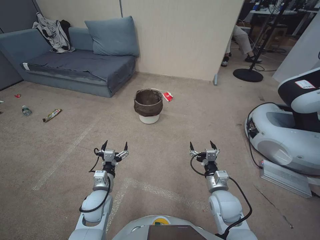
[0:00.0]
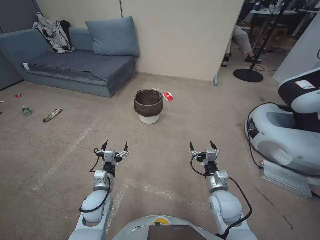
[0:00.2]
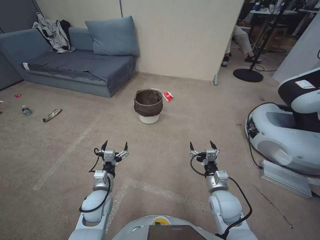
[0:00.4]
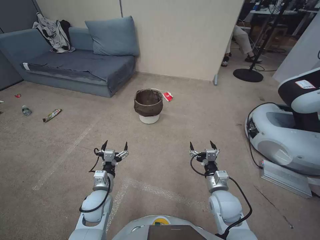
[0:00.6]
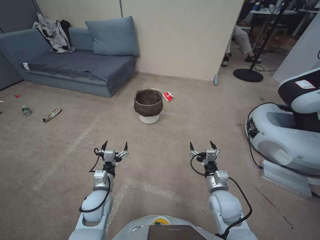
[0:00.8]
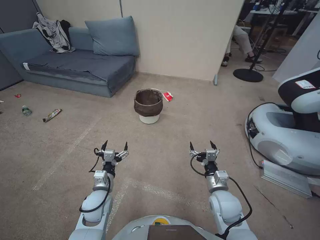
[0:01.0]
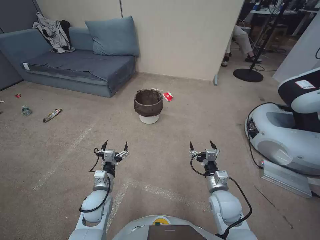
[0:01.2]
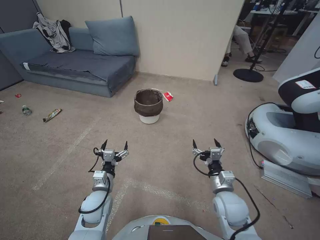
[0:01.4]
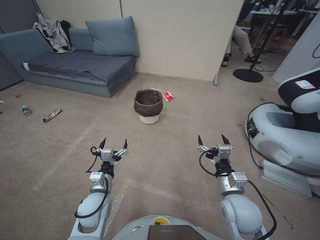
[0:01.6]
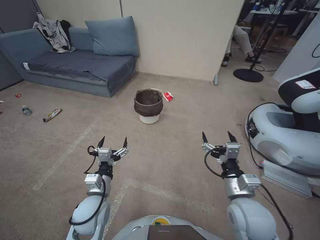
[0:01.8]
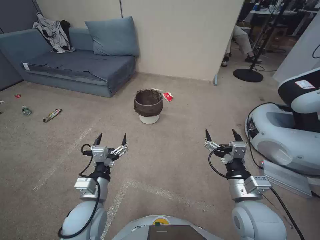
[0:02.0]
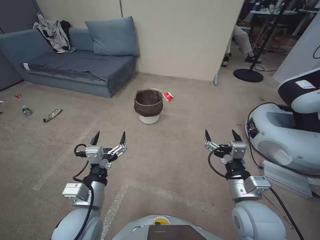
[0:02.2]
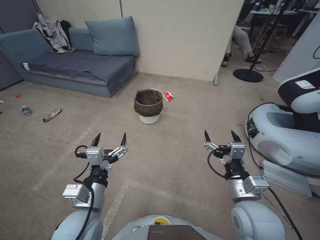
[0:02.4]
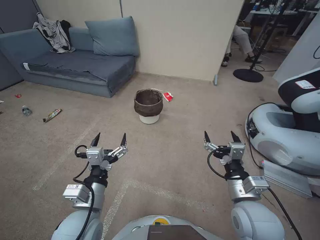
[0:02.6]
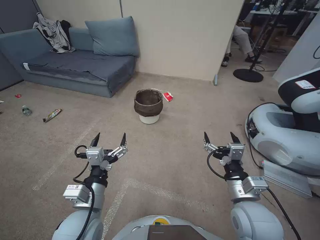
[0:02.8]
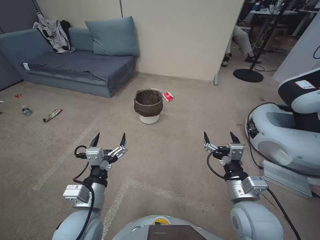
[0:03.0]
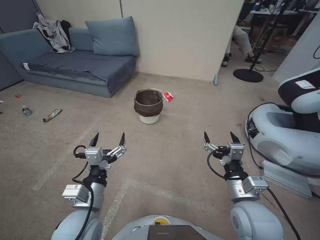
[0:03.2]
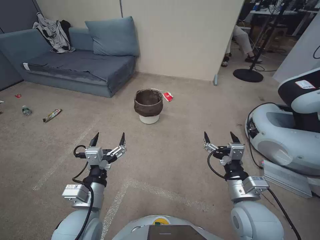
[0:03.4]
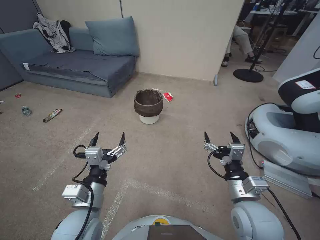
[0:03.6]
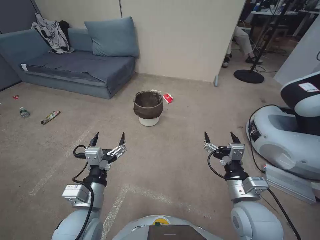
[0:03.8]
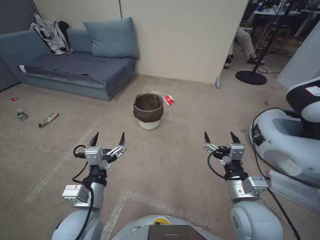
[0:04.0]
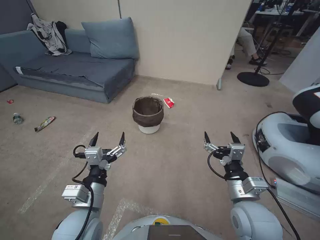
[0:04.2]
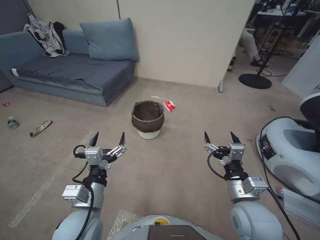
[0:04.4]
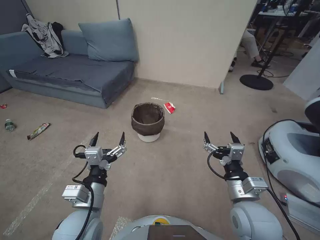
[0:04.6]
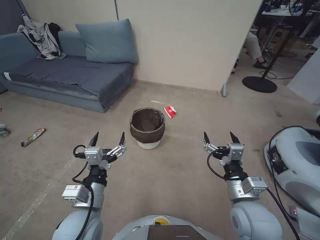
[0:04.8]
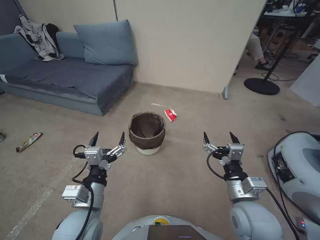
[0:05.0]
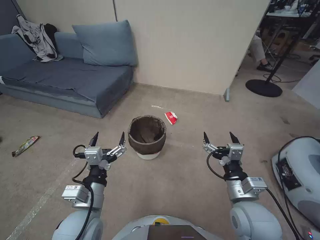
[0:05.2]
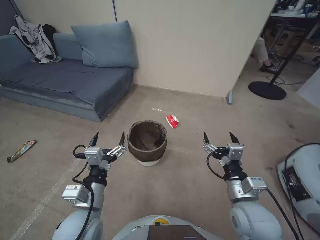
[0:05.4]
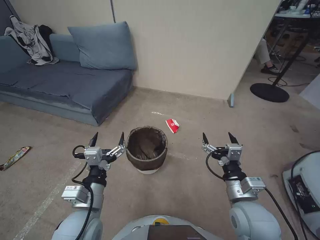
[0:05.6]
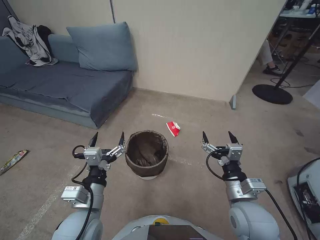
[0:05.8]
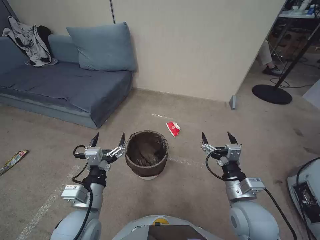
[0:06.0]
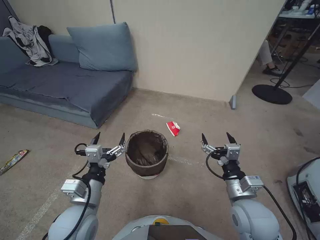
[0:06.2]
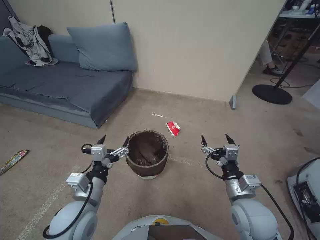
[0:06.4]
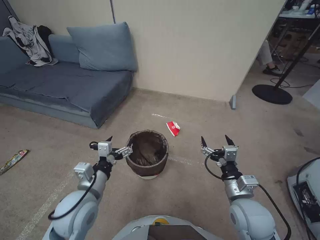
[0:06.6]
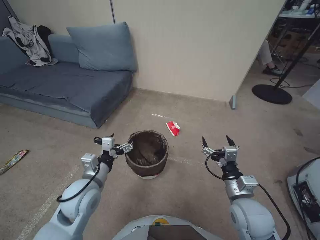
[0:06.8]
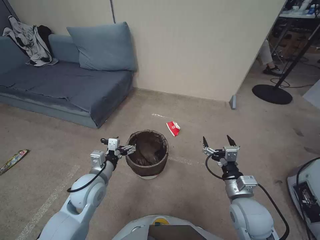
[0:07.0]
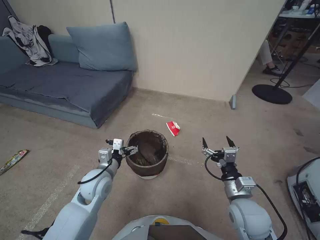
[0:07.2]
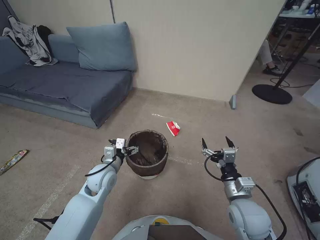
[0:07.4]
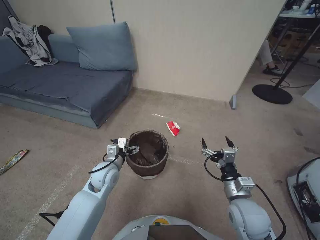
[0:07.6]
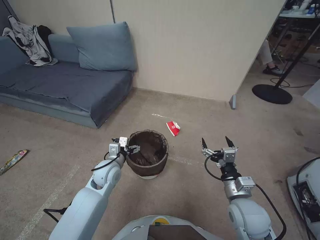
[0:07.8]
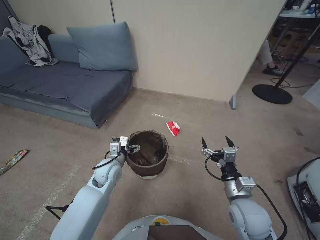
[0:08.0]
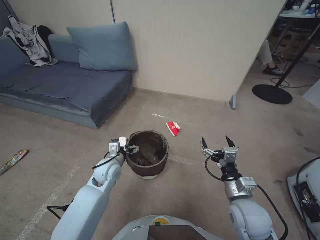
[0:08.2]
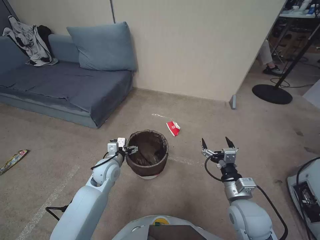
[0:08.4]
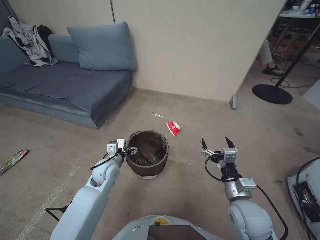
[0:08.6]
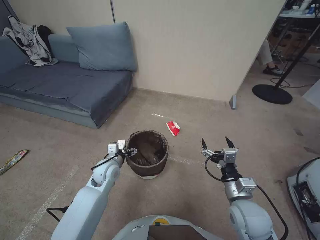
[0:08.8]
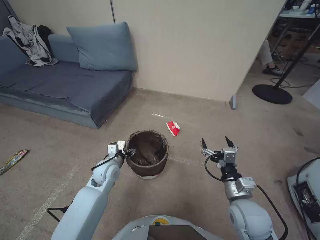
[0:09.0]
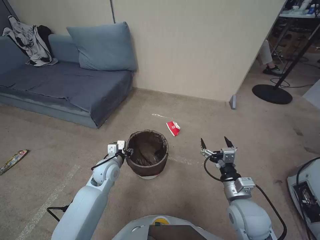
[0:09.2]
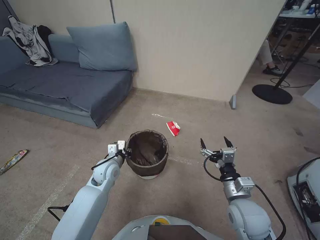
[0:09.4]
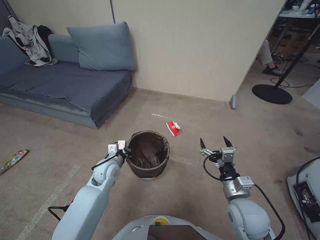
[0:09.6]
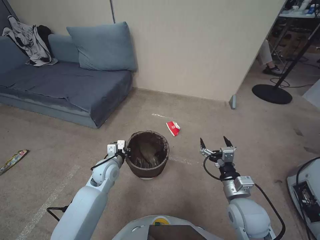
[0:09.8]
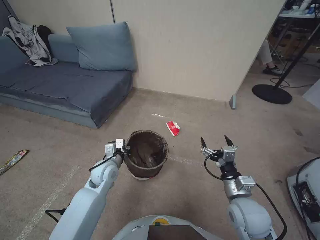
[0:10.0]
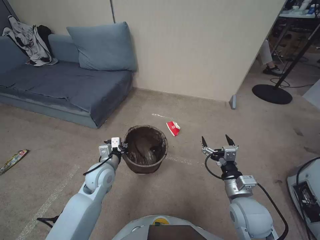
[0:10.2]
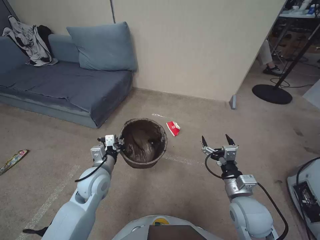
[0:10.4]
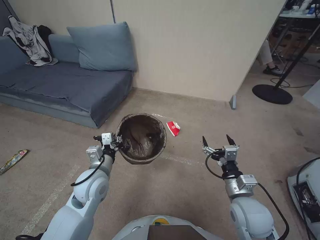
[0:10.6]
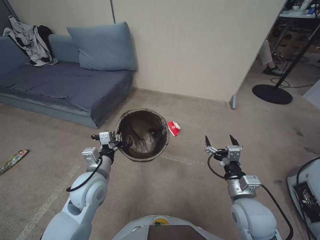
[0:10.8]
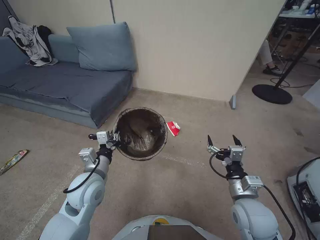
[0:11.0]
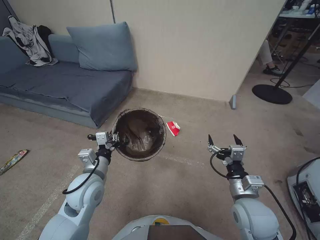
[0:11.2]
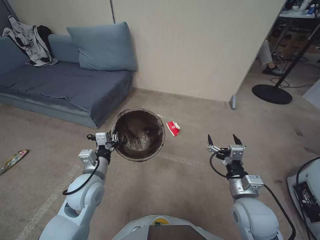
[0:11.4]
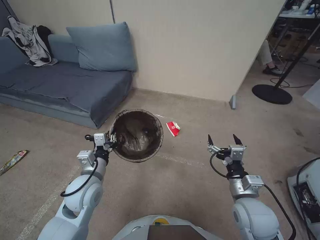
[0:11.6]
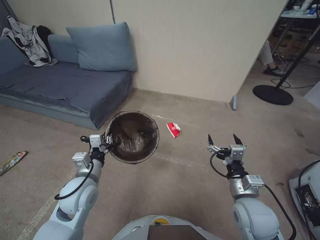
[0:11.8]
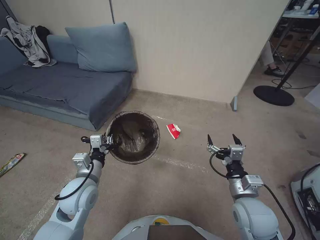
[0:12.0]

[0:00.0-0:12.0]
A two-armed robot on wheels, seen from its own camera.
Task of the whole recording: Pick up the trash bin, then pick up the garbage from the floor and place it into the trash bin.
0:01.6 to 0:03.0: The left gripper heads upward and backward, covering approximately 15 cm, while the right gripper shifts some 5 cm upward.
0:03.0 to 0:04.4: The two grippers keep their place.
0:06.0 to 0:07.6: The left gripper goes roughly 20 cm forward and downward. Meanwhile the right gripper moves about 5 cm.
0:07.6 to 0:09.0: There are only small adjustments of the grippers.
0:09.0 to 0:10.4: The left gripper heads upward and backward, covering roughly 5 cm, and closes.
0:10.4 to 0:12.0: The left gripper ends up approximately 5 cm from where it was.

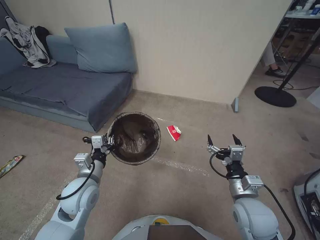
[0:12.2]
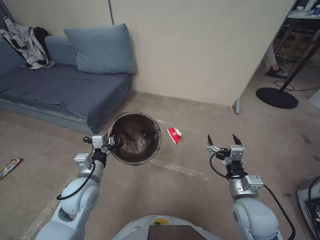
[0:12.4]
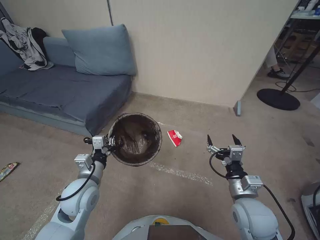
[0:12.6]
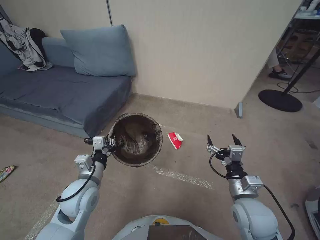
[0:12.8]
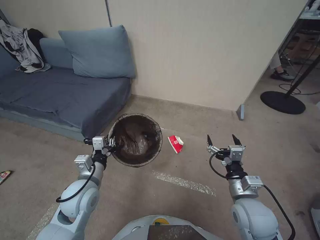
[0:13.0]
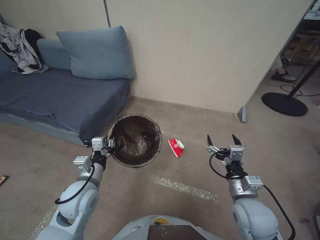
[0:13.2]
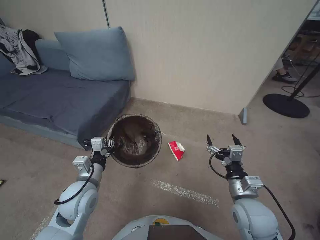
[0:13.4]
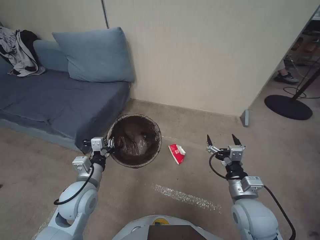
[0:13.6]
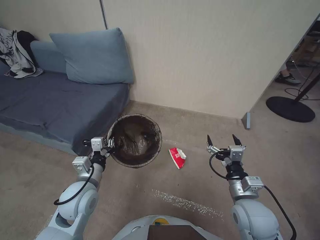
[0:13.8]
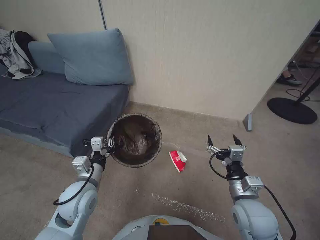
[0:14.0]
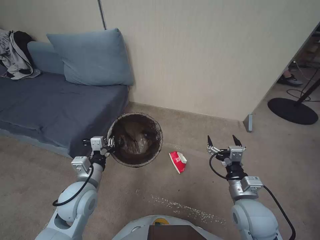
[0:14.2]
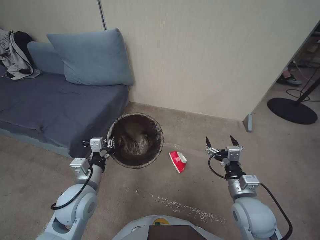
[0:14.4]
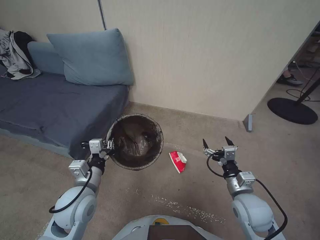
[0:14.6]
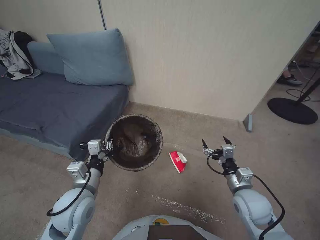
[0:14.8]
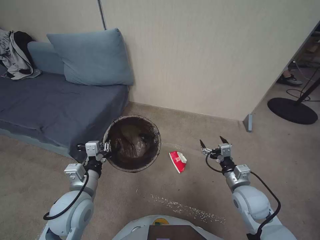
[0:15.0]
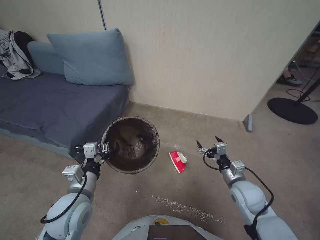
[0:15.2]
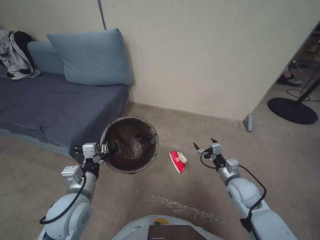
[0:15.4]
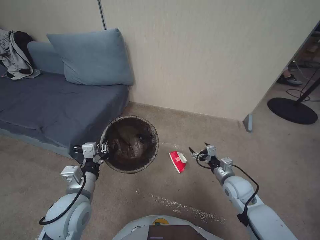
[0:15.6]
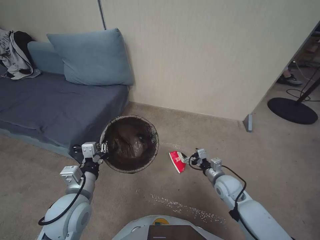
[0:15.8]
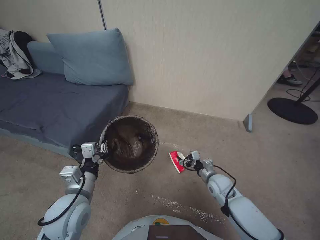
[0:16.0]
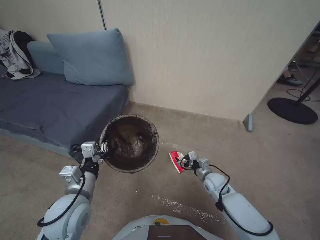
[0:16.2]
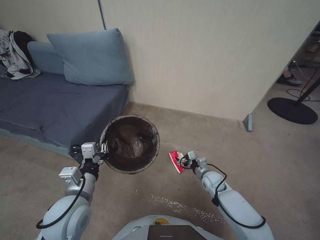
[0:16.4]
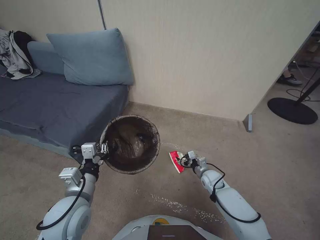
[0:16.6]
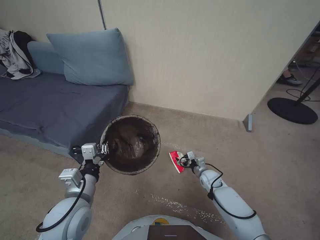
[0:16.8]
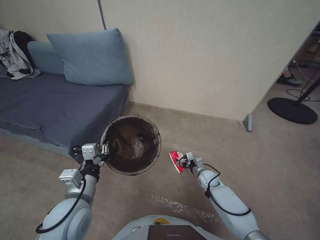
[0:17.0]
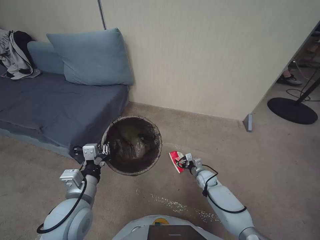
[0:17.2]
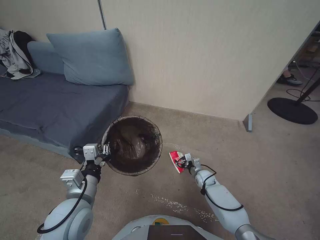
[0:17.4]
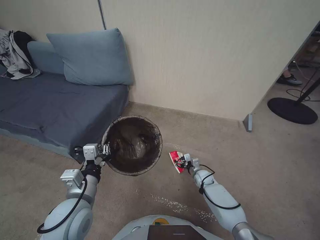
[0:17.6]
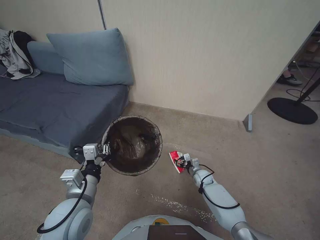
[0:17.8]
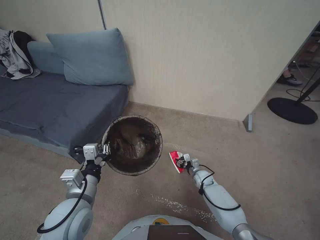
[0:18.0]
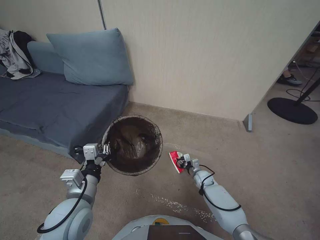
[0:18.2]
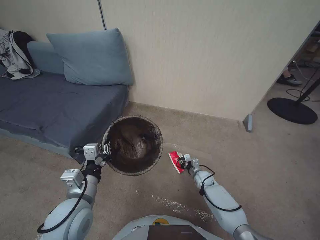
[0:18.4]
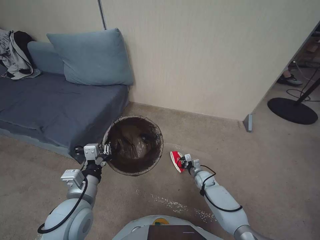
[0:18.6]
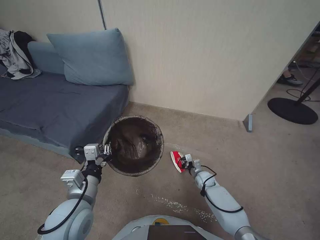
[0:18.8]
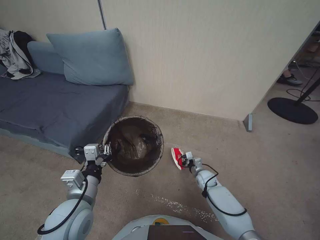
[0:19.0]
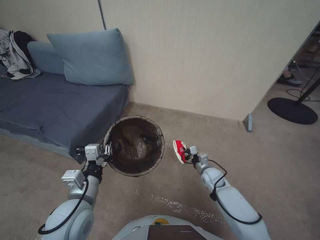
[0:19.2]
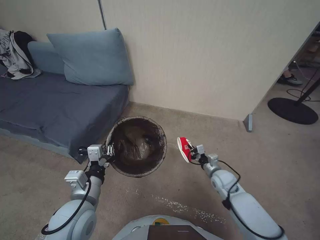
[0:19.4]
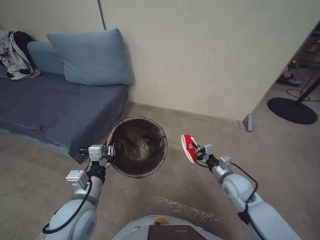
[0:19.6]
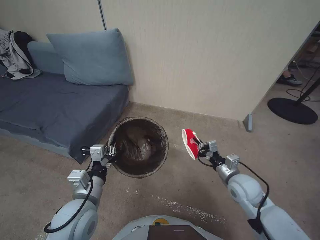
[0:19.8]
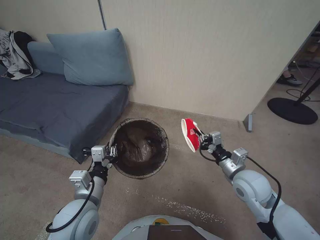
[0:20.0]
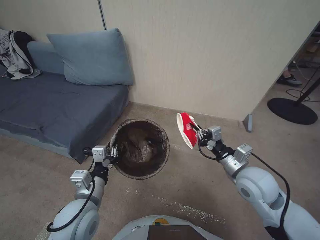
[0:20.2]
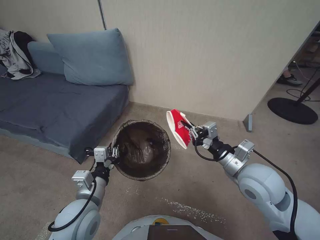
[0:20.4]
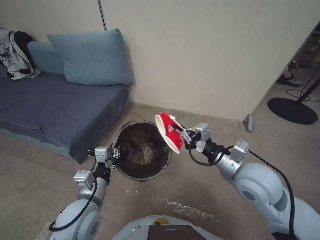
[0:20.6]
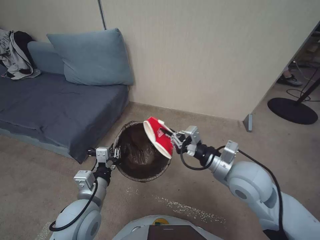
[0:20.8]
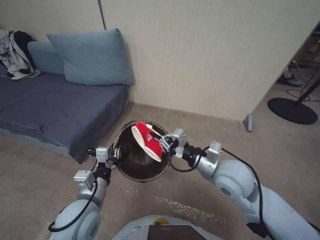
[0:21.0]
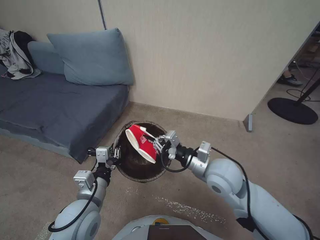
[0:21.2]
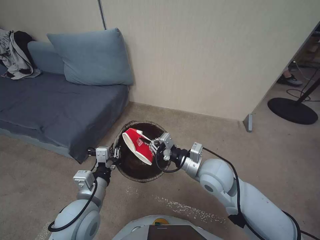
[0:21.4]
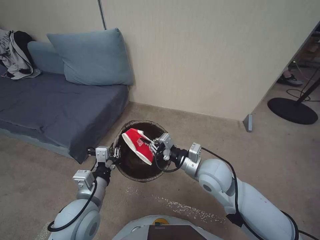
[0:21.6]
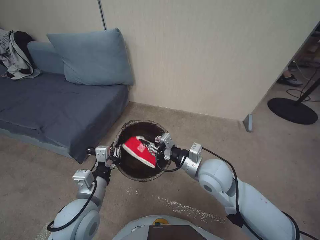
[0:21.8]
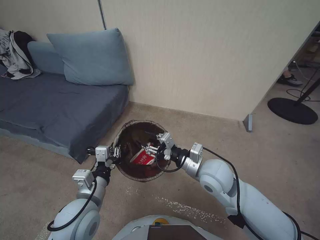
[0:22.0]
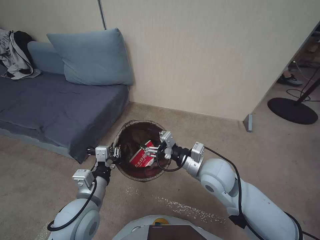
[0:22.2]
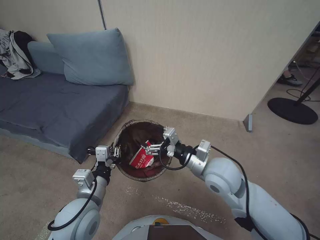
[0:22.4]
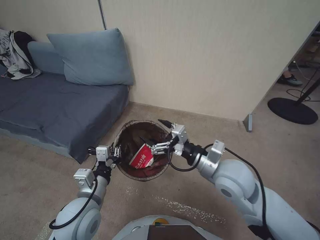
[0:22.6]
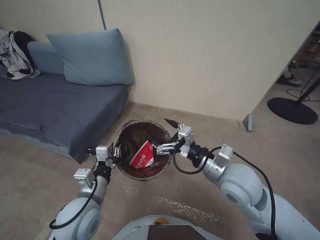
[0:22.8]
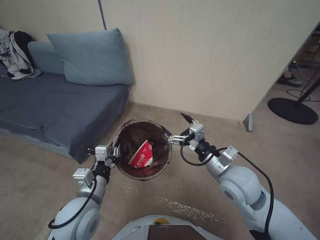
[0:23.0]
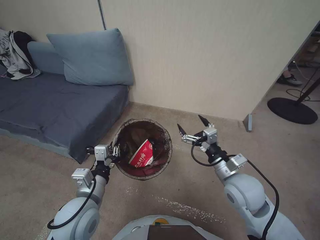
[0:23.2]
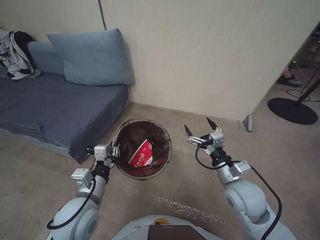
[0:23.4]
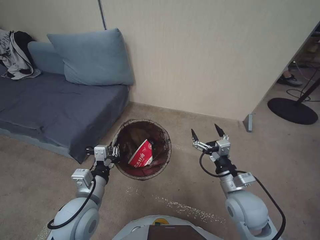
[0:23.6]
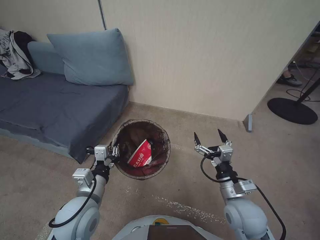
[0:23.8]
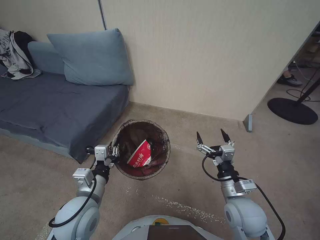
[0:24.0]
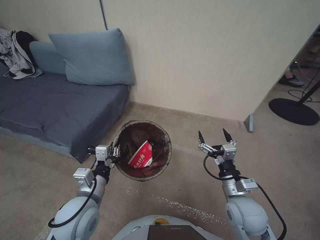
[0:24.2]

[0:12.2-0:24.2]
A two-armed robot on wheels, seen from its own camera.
Task of the whole recording: Pick up the trash bin, then pick up the garbage from the floor and place it into the trash bin.
0:13.8 to 0:15.2: The right gripper heads forward and downward, covering roughly 10 cm.
0:15.2 to 0:16.6: The right gripper heads downward and forward, covering about 20 cm.
0:16.6 to 0:18.2: The right gripper heads downward, covering roughly 5 cm, and closes its fingers.
0:18.2 to 0:19.8: The right gripper shifts roughly 25 cm upward and backward, and closes its fingers.
0:19.8 to 0:21.2: The right gripper travels upward and to the left by some 15 cm.
0:21.2 to 0:22.6: The right gripper opens.
0:22.6 to 0:24.2: The right gripper moves downward, to the right and backward, approximately 15 cm.
